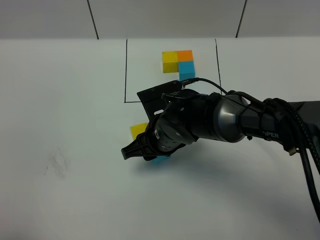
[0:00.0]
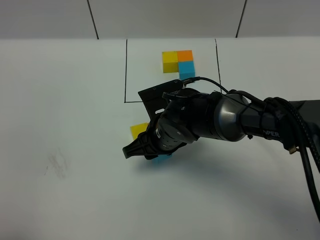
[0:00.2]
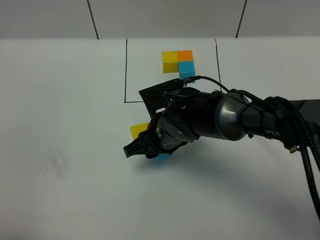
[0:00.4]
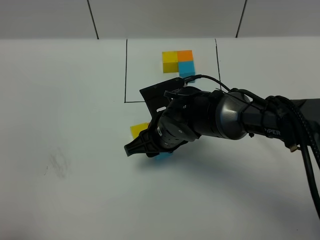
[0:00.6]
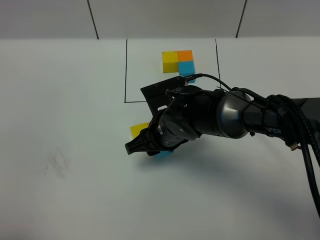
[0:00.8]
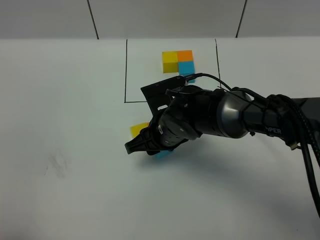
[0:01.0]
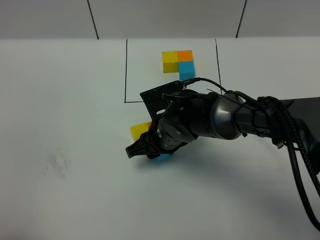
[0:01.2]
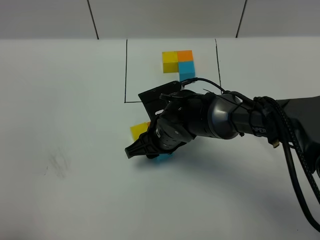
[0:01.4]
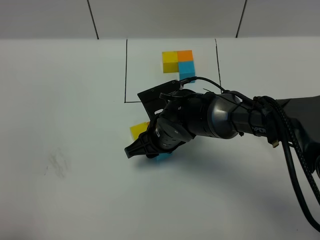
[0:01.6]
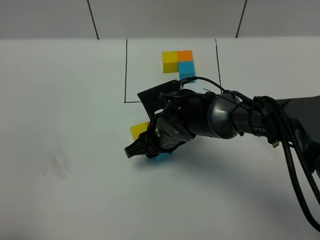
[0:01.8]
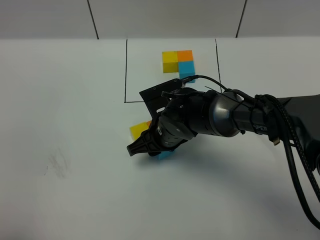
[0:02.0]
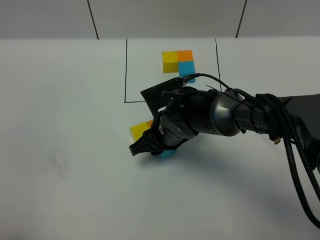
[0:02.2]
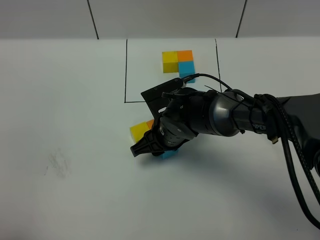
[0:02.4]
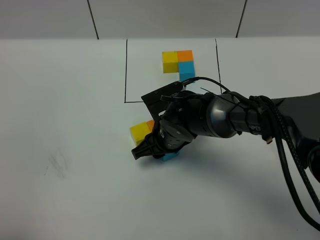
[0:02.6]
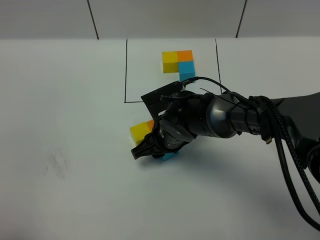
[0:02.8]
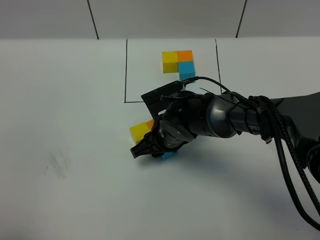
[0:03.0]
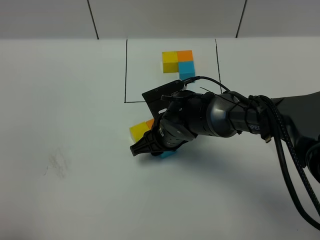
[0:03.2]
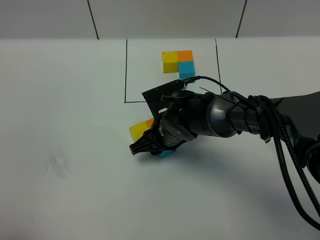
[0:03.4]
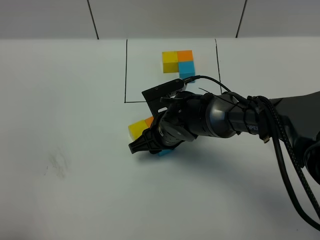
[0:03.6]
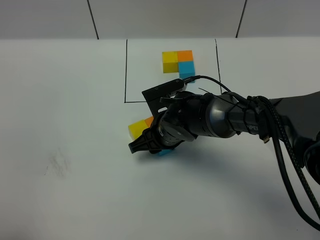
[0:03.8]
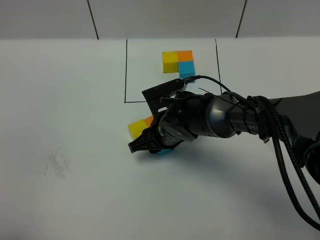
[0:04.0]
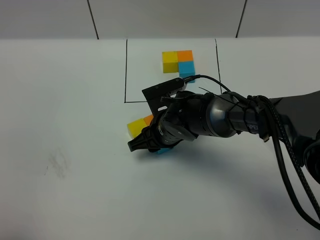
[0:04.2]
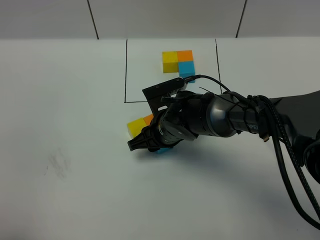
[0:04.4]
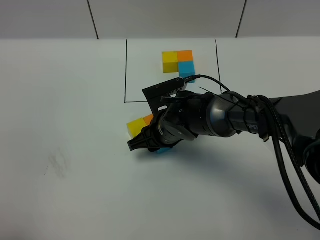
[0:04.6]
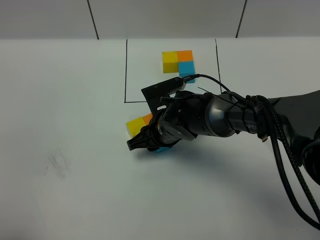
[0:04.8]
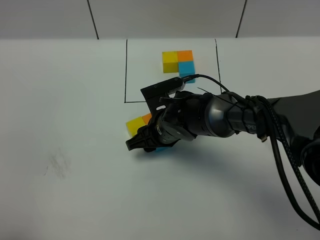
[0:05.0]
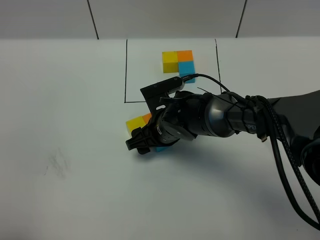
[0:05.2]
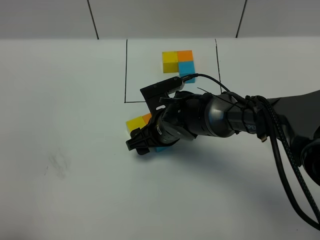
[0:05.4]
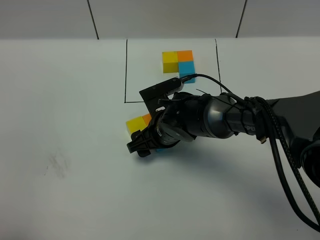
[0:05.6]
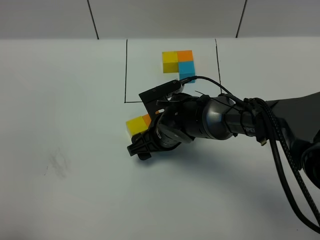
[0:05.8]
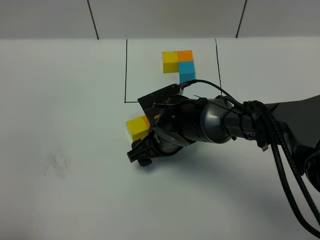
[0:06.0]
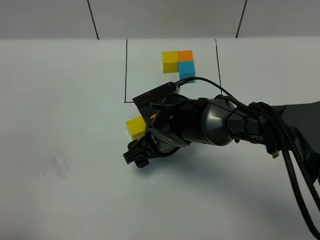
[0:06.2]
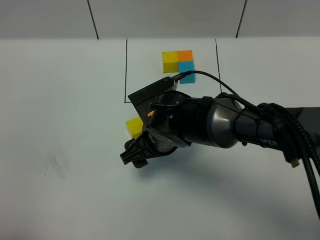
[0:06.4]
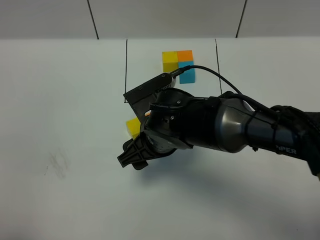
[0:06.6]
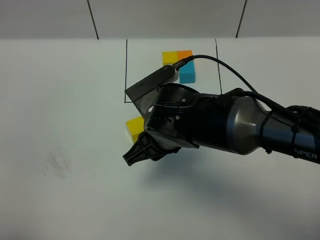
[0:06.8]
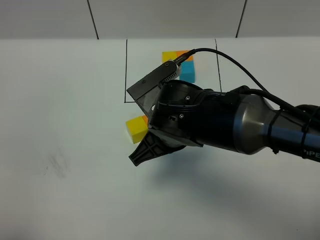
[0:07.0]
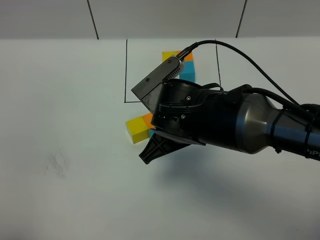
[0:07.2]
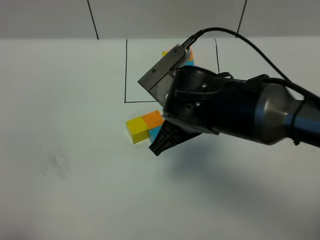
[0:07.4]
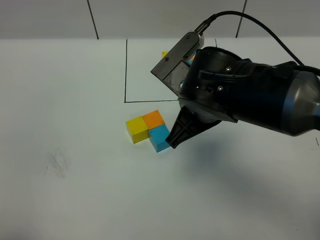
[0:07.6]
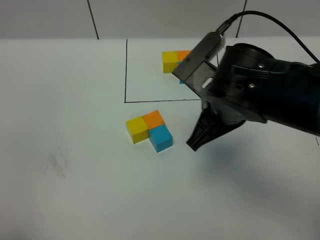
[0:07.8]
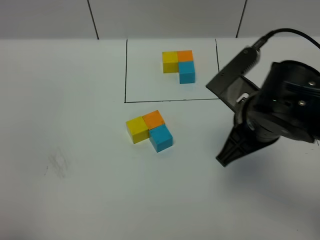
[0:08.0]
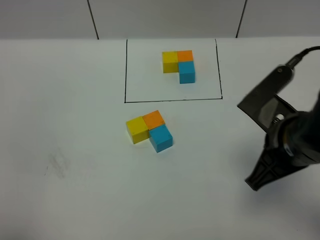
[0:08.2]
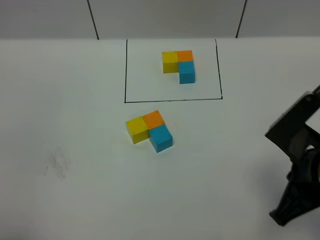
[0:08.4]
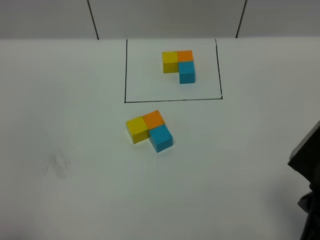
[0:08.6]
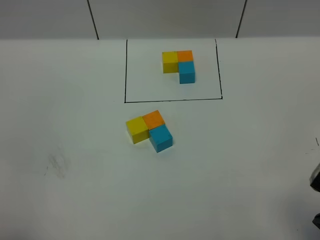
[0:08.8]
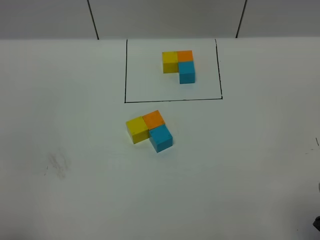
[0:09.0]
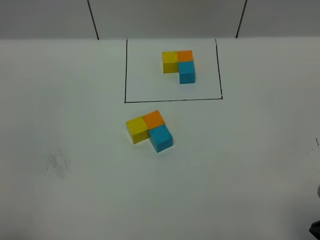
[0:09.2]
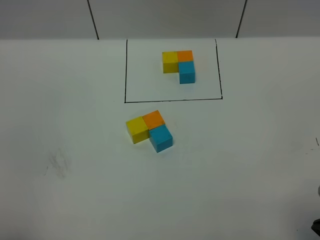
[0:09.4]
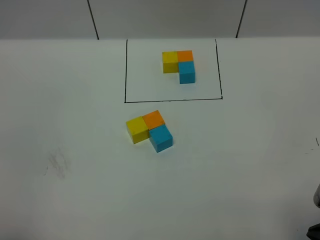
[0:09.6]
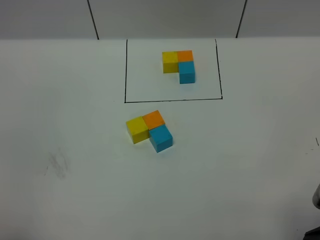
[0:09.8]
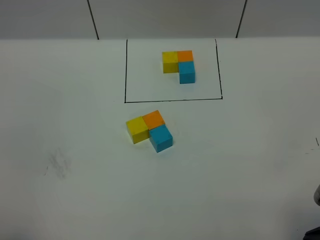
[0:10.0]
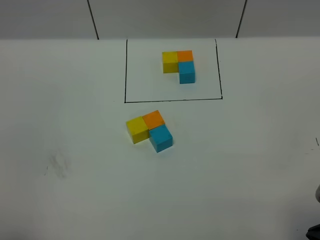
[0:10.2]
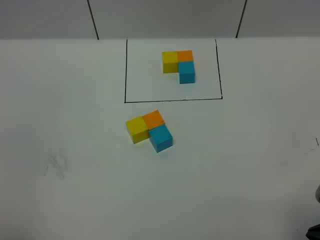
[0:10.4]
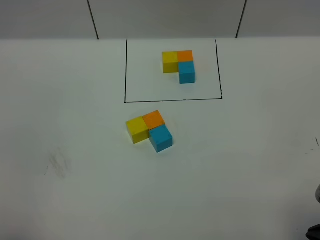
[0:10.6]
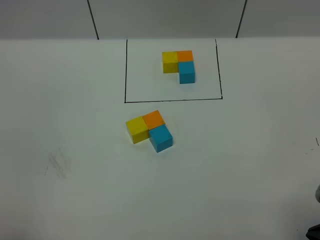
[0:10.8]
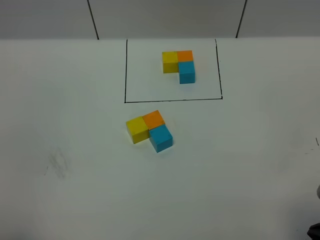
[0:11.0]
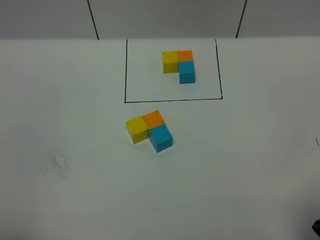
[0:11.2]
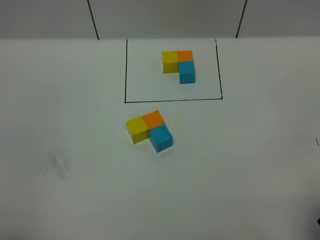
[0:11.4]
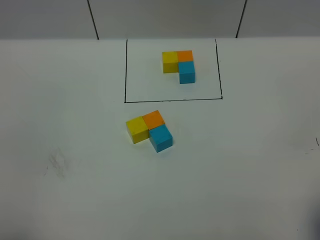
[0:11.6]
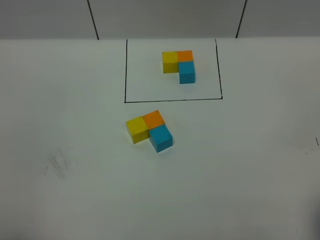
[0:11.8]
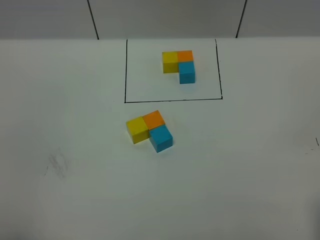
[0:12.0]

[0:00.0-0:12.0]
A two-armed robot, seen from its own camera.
Task of the whole recording: According to the building block template in front, assemble the scattered blocks together.
Step, 0:00.0 to 0:05.8: Put the blue cube in the front of the orange cube.
0:00.0 to 0:04.4: The grippers make only small movements.
0:04.4 to 0:06.0: The right gripper opens up.
0:06.0 to 0:07.6: The right gripper heads upward, covering approximately 15 cm, and closes its fingers.
0:07.6 to 0:09.0: The right gripper goes approximately 25 cm to the right and backward.

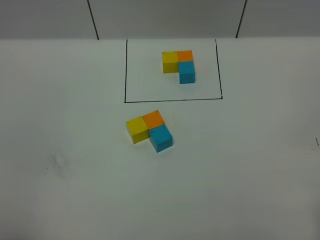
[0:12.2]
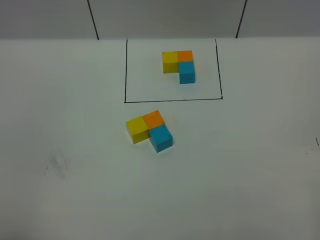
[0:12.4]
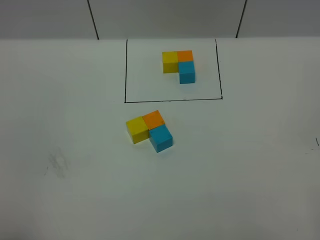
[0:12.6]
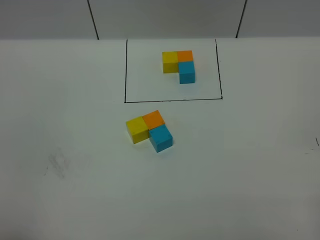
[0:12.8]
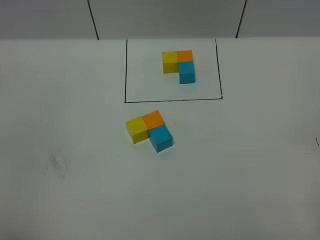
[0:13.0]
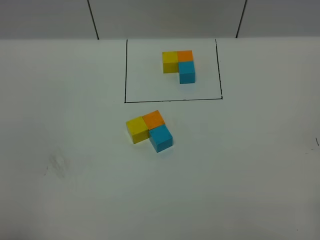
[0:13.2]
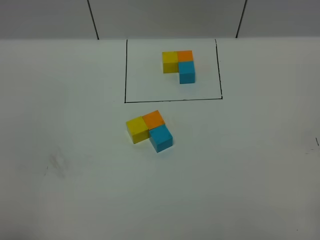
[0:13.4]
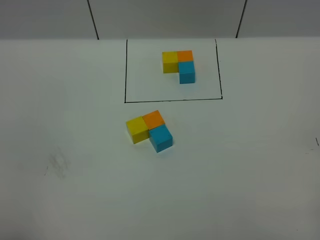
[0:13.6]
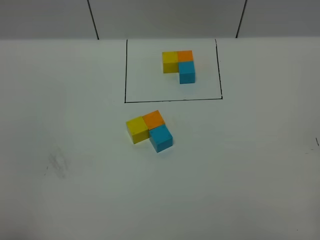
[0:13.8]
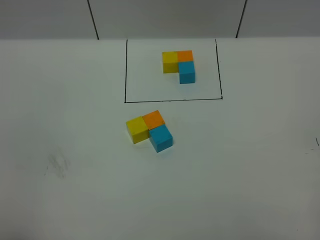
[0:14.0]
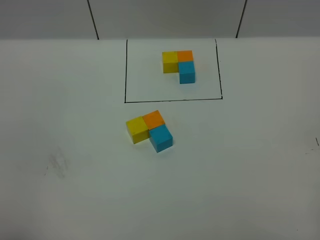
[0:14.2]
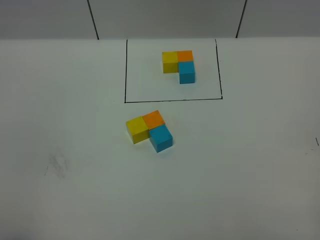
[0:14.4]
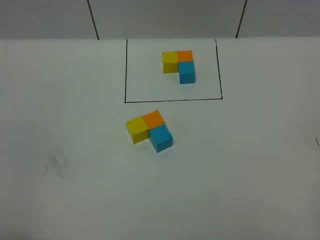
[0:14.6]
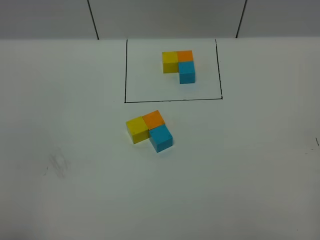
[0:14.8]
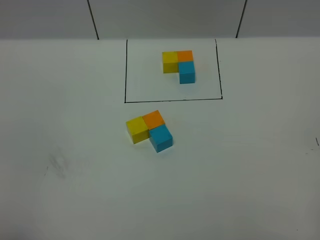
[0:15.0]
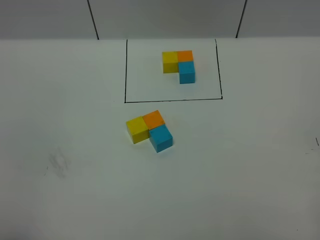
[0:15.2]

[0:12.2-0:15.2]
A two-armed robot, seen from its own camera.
Task of the whole recording: According to the building block template in front, assemble the scattered blocks together.
0:13.8 to 0:15.2: Neither gripper changes place.
